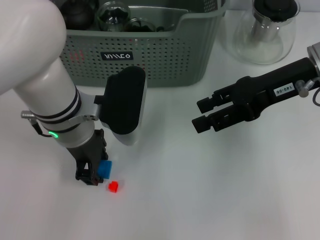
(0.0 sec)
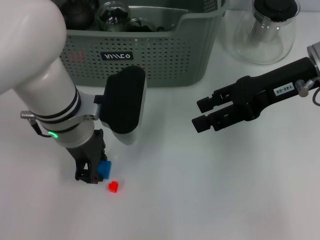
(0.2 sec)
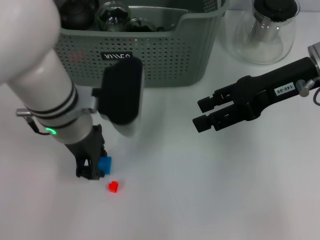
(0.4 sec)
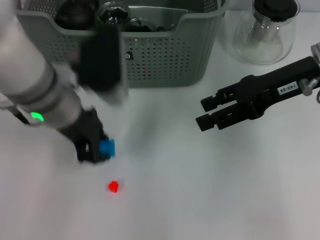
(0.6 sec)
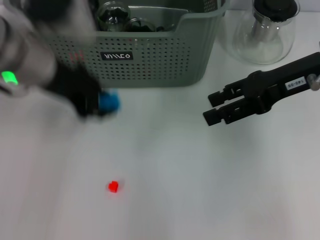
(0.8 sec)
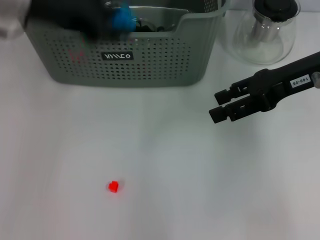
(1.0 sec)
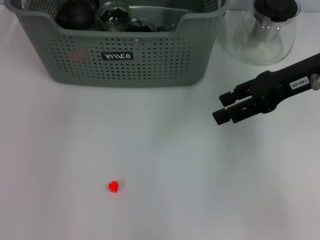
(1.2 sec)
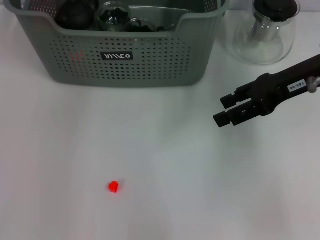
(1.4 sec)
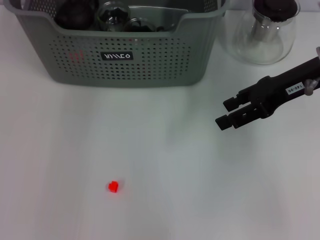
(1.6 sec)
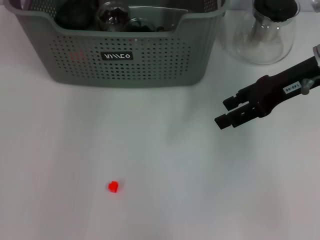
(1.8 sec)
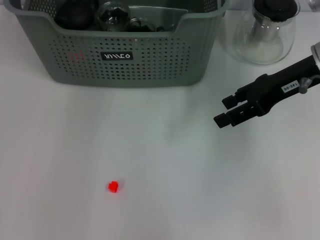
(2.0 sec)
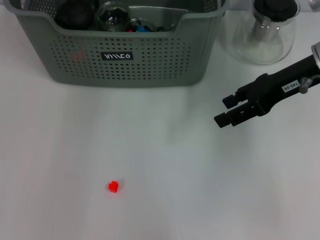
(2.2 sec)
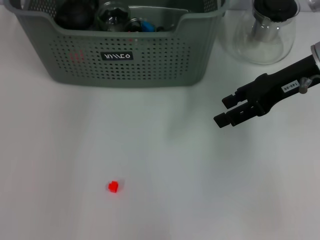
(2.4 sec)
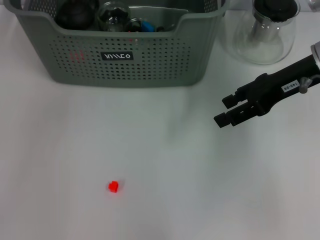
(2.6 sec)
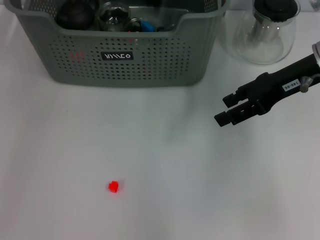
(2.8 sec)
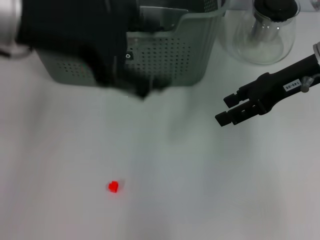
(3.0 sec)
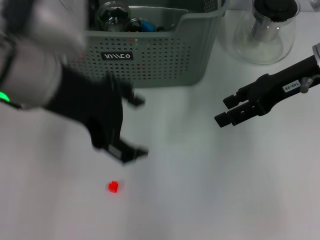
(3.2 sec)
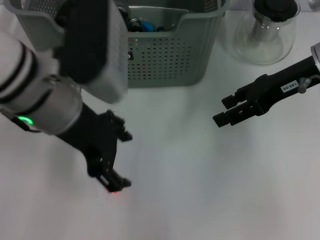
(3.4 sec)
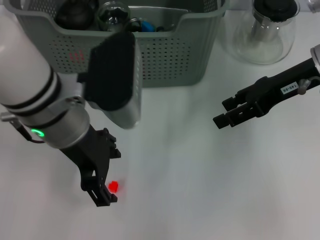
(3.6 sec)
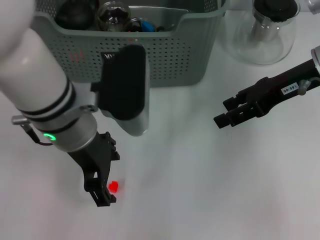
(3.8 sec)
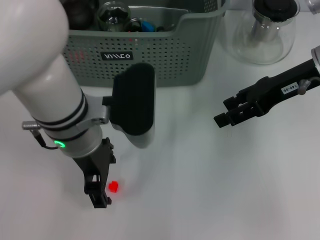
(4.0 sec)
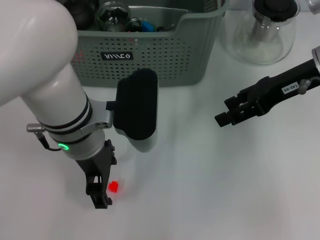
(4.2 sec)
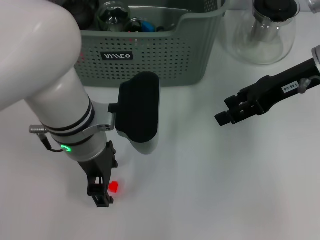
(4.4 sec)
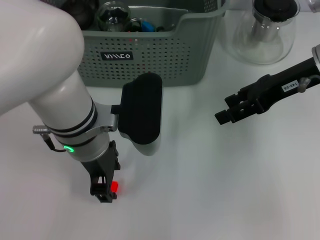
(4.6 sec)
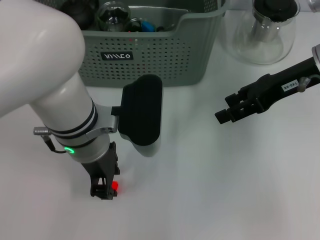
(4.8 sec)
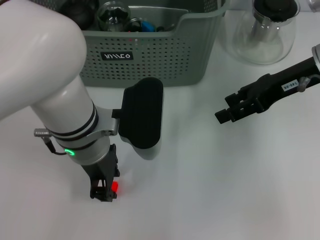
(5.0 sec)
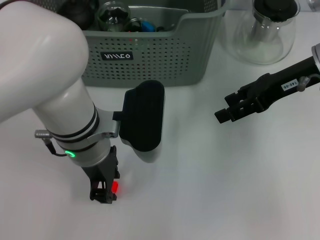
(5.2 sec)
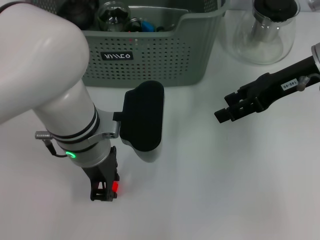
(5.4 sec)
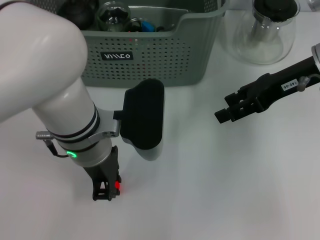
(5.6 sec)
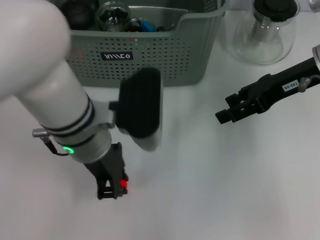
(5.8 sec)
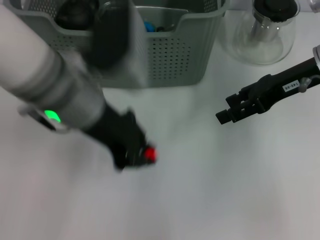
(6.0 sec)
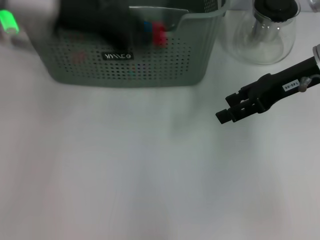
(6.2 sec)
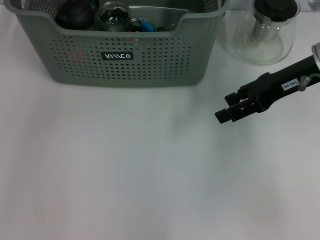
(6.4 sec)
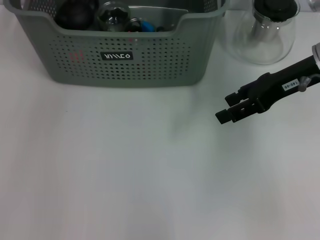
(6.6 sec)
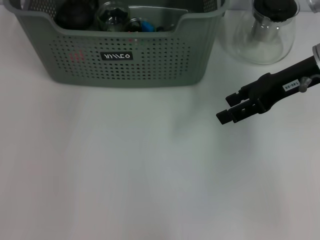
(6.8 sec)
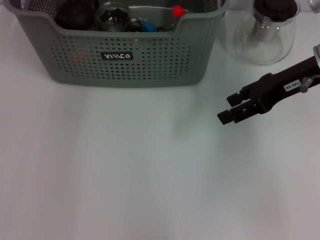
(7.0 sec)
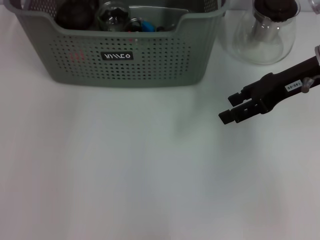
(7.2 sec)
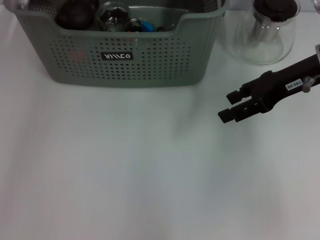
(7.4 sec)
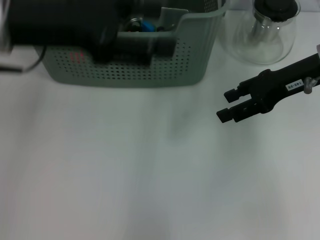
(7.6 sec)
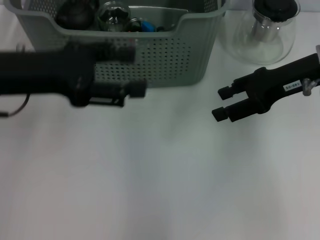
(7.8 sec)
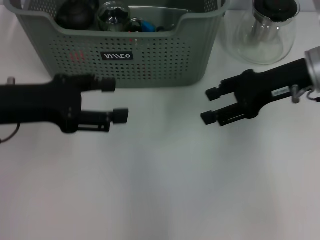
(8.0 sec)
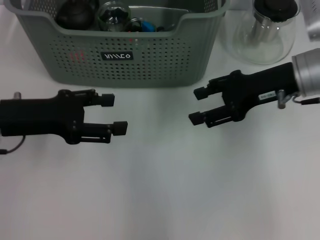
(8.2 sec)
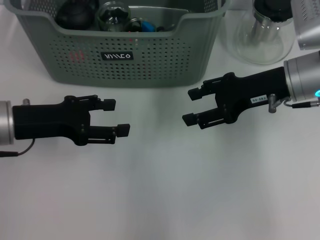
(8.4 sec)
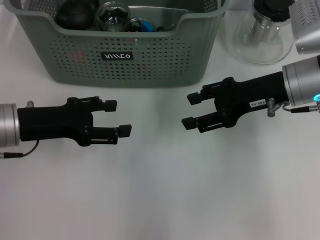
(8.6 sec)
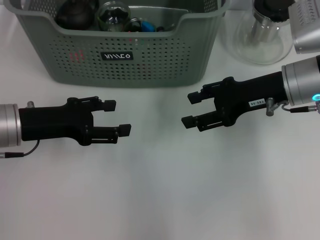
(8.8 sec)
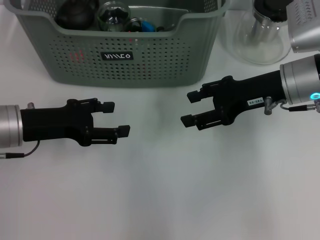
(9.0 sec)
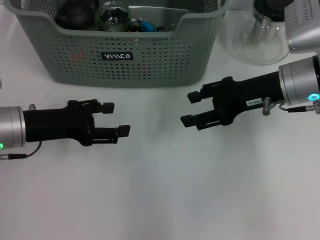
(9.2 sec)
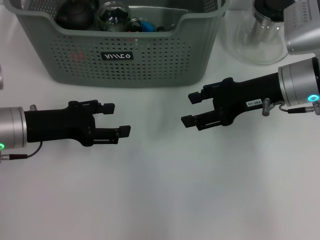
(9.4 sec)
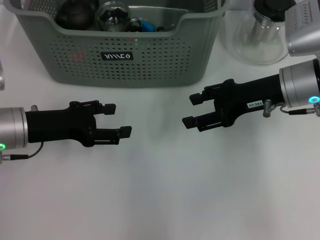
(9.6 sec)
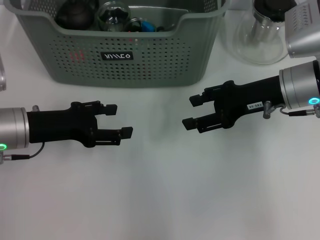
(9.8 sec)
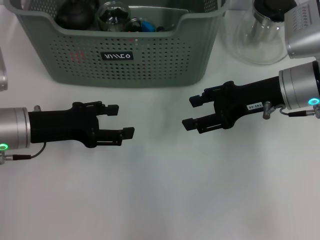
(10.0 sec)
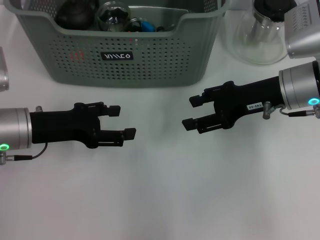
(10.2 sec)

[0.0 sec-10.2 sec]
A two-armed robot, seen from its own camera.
Task of the whole recording: pick up the teacup on the table and place it into the storage bin, pick up the block on the table and place it into the storage bin.
Step, 0.2 sec to 2.2 sec: Place the dark blue block in the storage box with left gripper.
Step, 2.4 sec to 5.4 sec: Grasp the orange block with left gripper.
Step, 5.6 sec to 6.8 sec: Place the orange block in the storage box with left gripper.
0.0 sec to 1.4 sec: The left gripper goes some 20 cm upward and forward.
1.4 sec to 3.0 sec: The left gripper heads backward, covering roughly 15 cm, and opens its fingers.
3.0 sec to 4.4 sec: The left gripper goes approximately 15 cm downward and to the right.
4.4 sec to 5.8 sec: The left gripper closes up.
5.8 sec to 7.2 sec: The left gripper shifts approximately 20 cm forward and upward.
7.2 sec to 8.8 sec: The right gripper shifts by some 5 cm. Meanwhile the left gripper moves downward, backward and to the left, approximately 25 cm, and opens.
8.8 sec to 10.2 sec: The grippers make only small movements.
